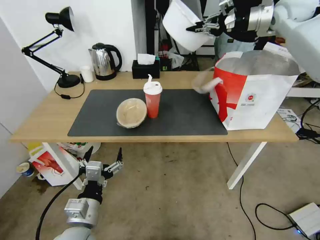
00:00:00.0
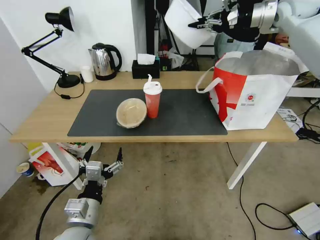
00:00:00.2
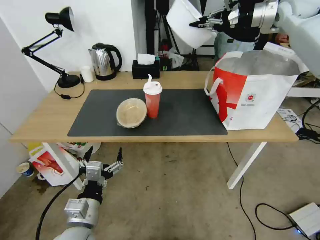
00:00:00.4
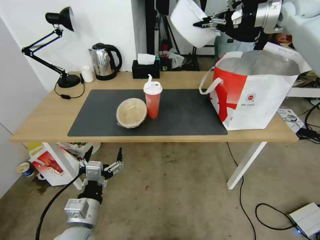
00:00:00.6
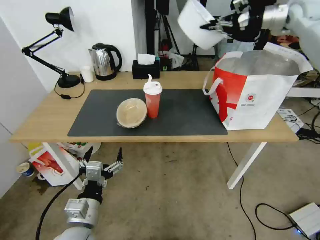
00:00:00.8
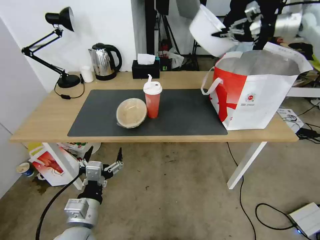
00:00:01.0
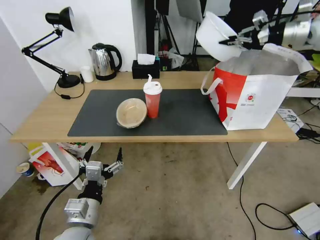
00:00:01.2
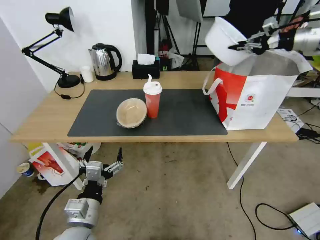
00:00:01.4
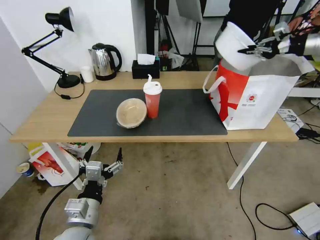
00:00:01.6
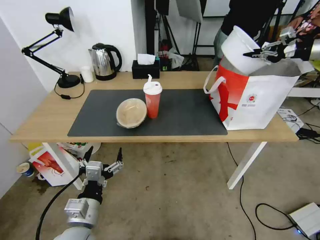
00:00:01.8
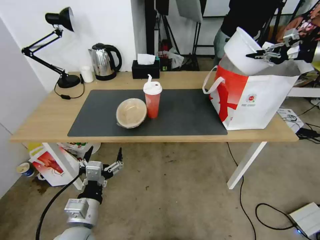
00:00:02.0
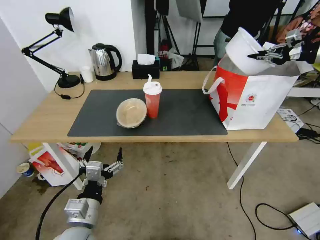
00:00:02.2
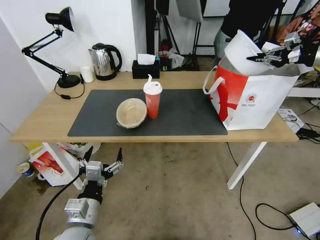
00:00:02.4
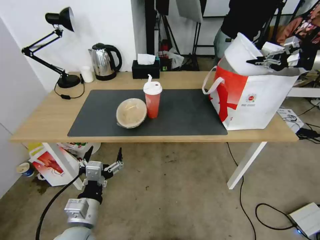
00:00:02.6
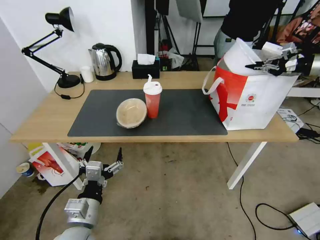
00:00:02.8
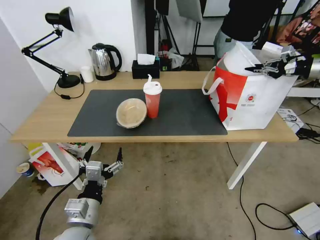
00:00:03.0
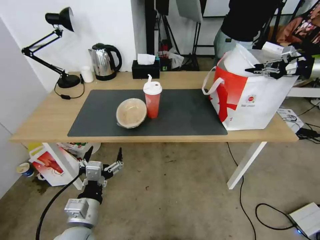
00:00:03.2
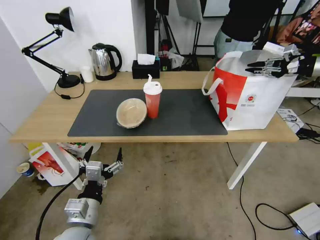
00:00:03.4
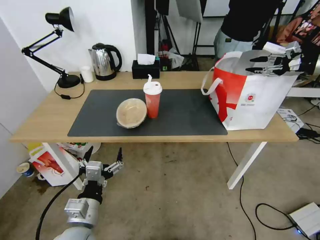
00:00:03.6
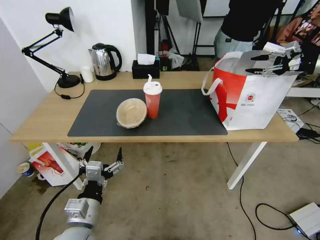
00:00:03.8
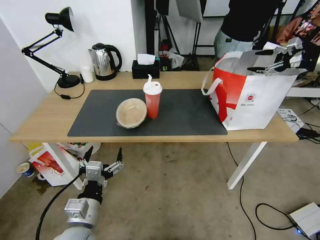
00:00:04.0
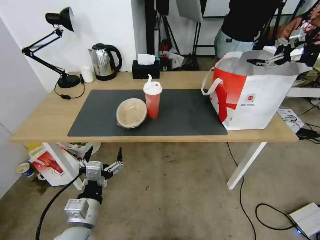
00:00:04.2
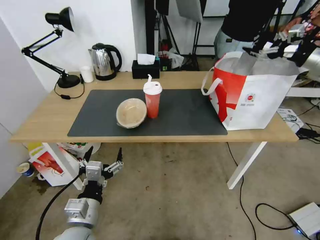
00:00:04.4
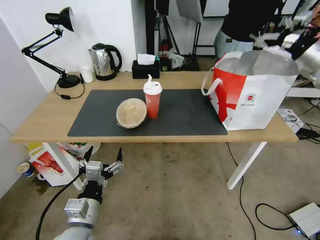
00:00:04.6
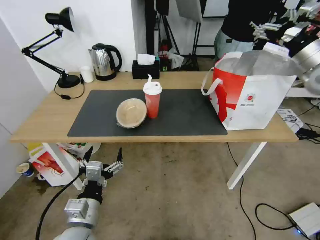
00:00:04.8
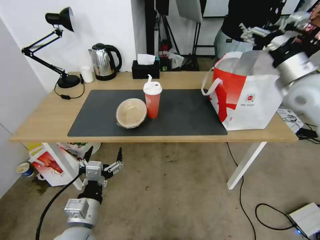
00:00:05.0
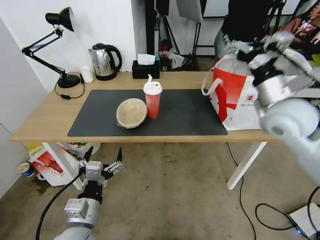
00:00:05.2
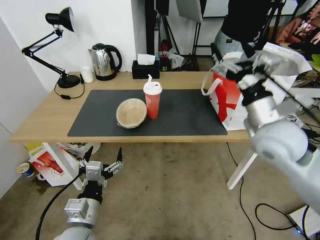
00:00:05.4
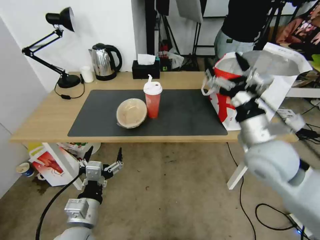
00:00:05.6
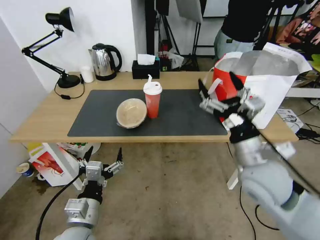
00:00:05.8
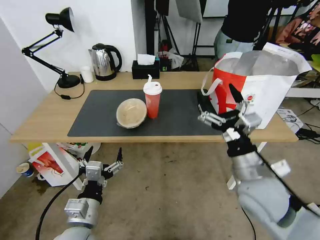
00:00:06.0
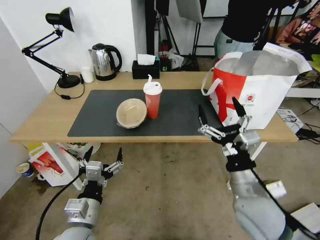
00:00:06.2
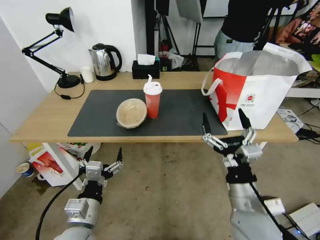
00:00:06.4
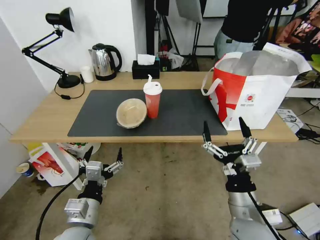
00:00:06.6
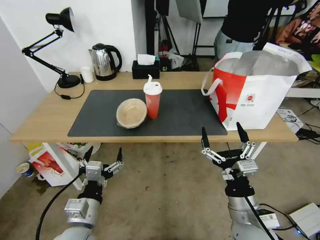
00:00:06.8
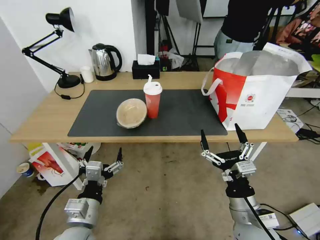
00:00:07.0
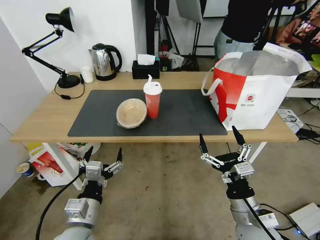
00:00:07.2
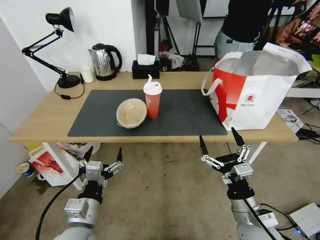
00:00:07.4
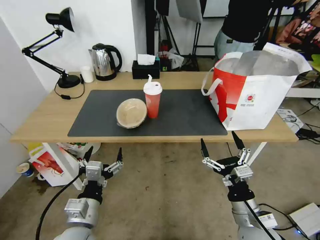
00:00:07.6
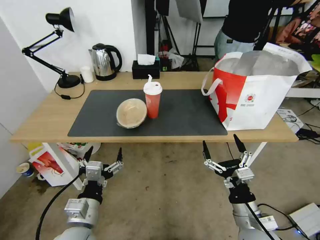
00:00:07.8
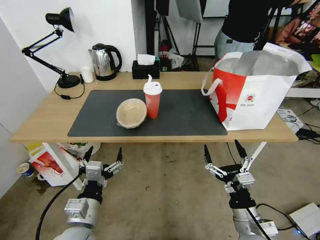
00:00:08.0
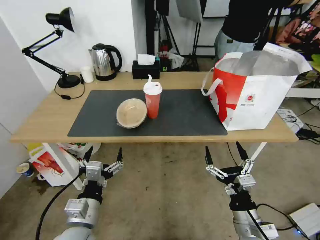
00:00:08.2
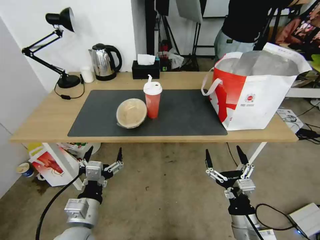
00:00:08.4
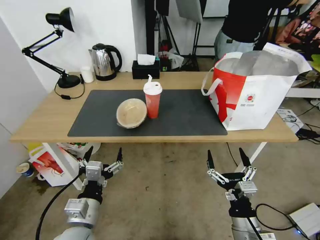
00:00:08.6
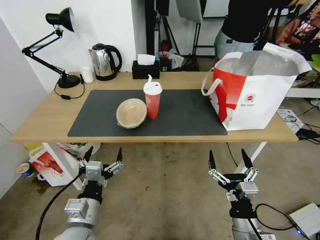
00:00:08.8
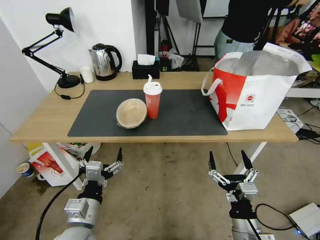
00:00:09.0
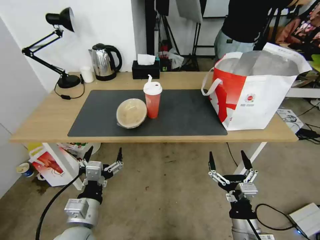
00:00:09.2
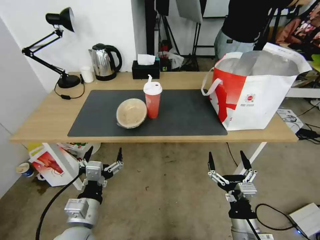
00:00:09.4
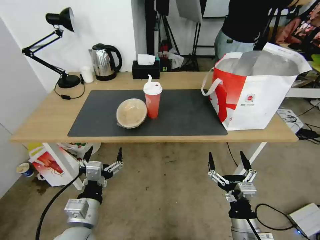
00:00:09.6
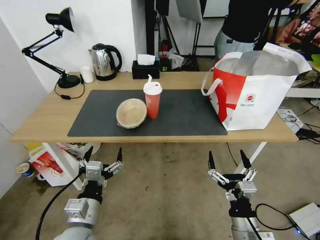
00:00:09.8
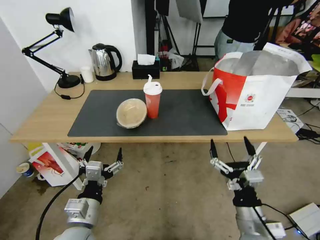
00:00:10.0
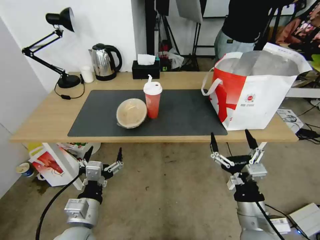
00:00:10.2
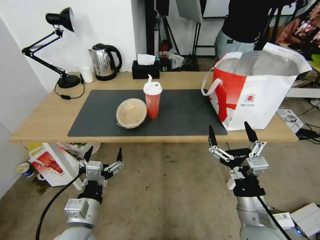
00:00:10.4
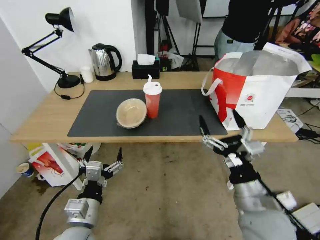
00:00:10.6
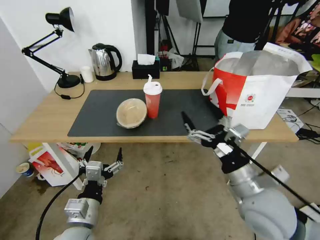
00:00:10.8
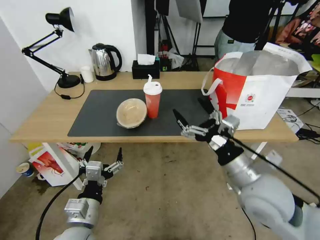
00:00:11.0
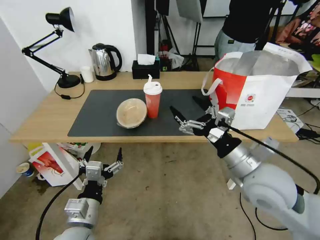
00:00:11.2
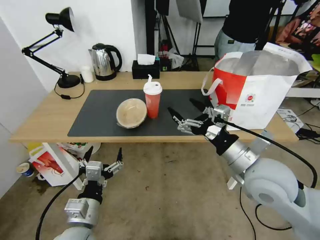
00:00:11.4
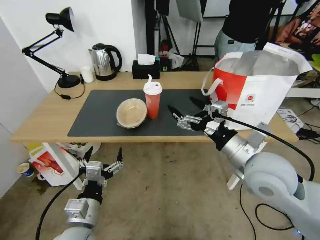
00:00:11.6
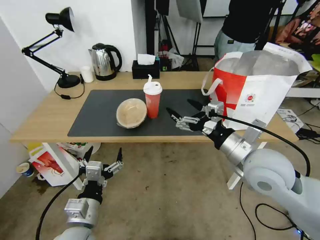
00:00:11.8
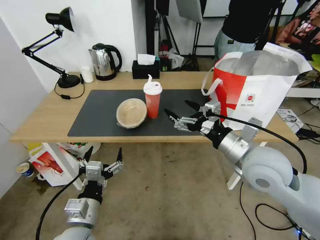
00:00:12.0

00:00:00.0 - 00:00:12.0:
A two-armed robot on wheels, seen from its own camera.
Task of the whole recording: Pick up the trash from the table and place it into the takeout bag.
00:00:00.0 - 00:00:01.6: The right gripper is displaced to the right by roughly 20 cm.
00:00:01.6 - 00:00:03.0: The right gripper heads downward, covering approximately 5 cm.
00:00:03.0 - 00:00:04.4: The right gripper ends up approximately 5 cm from where it was, and opens its fingers.
00:00:04.4 - 00:00:06.0: The right gripper heads to the left, backward and downward, covering about 40 cm.
00:00:06.0 - 00:00:07.6: The right gripper moves downward and backward, roughly 15 cm.
00:00:07.6 - 00:00:09.0: The right gripper ends up about 5 cm from where it was.
00:00:09.0 - 00:00:10.4: The right gripper goes some 10 cm upward.
00:00:10.4 - 00:00:12.0: The right gripper travels forward and upward by approximately 15 cm.

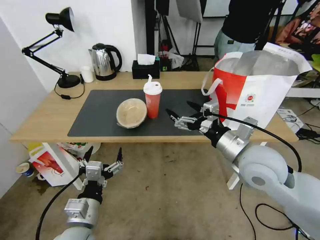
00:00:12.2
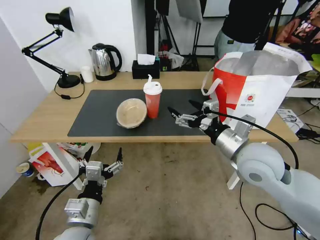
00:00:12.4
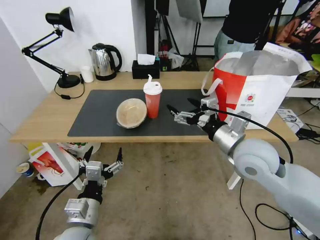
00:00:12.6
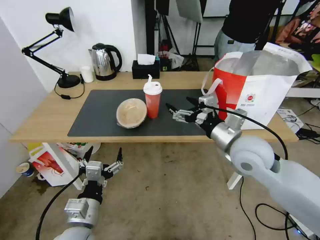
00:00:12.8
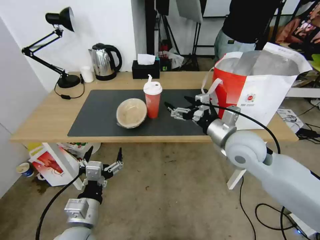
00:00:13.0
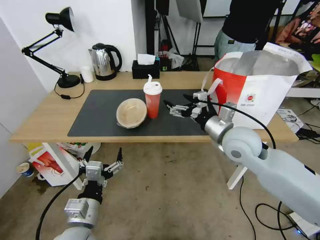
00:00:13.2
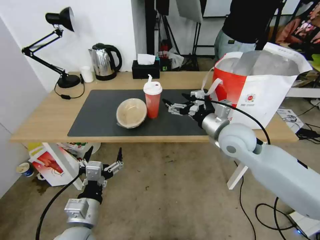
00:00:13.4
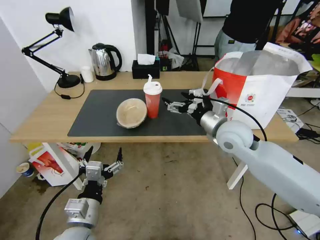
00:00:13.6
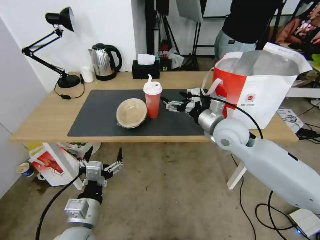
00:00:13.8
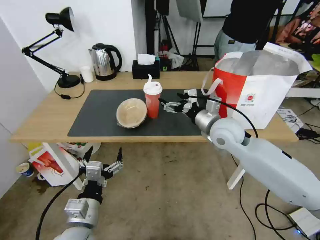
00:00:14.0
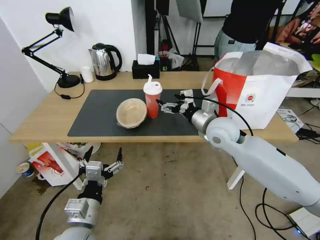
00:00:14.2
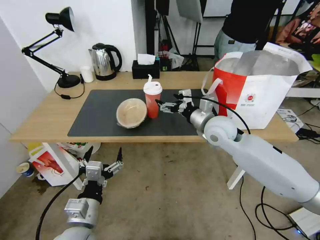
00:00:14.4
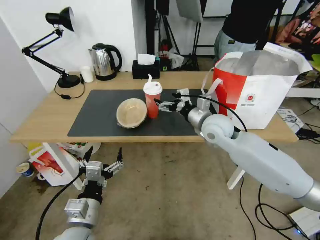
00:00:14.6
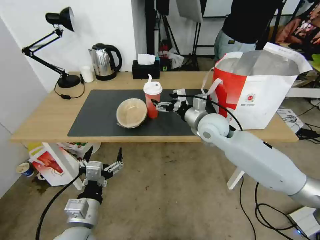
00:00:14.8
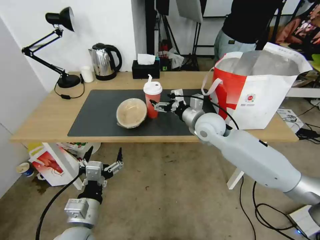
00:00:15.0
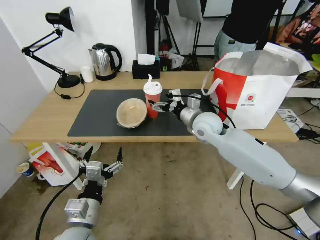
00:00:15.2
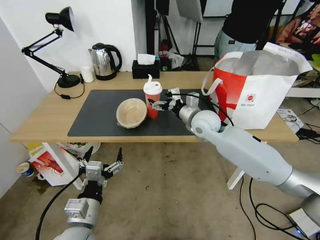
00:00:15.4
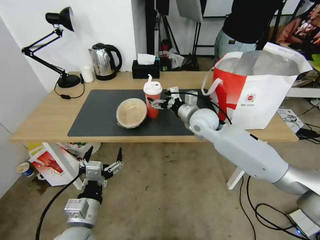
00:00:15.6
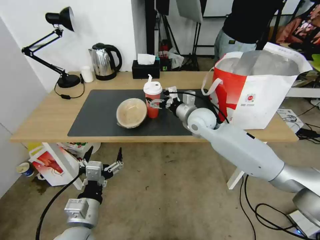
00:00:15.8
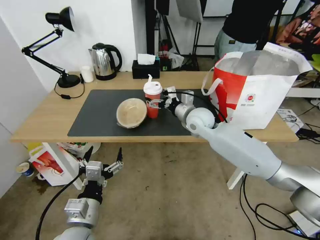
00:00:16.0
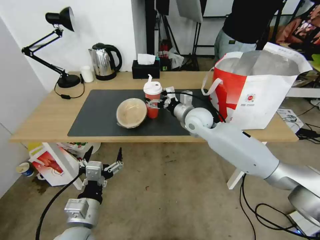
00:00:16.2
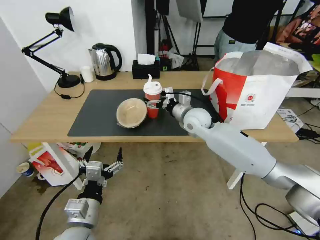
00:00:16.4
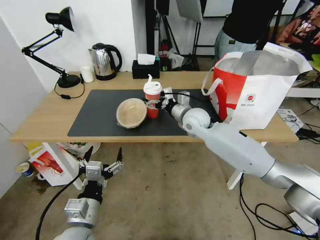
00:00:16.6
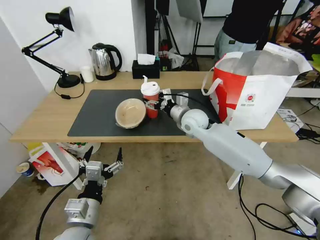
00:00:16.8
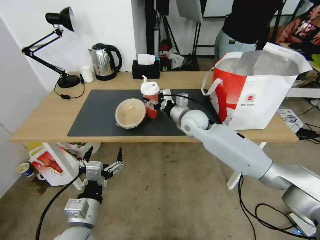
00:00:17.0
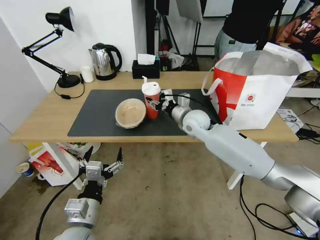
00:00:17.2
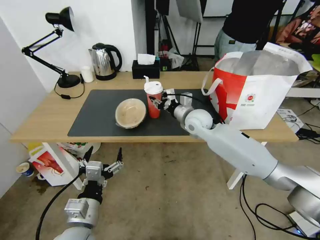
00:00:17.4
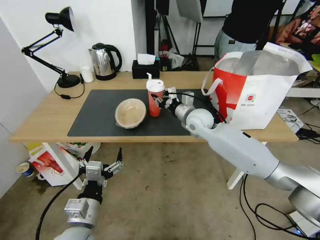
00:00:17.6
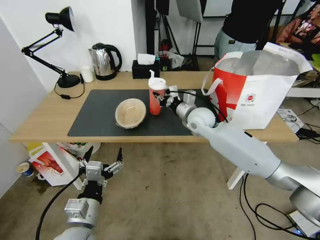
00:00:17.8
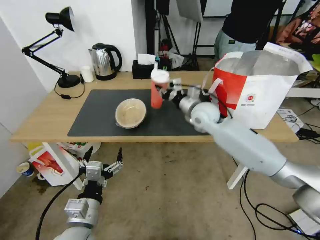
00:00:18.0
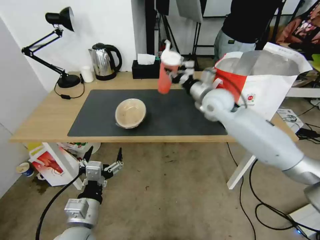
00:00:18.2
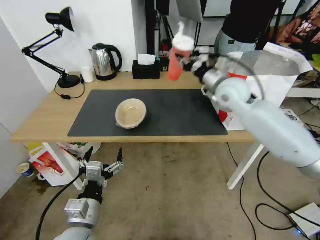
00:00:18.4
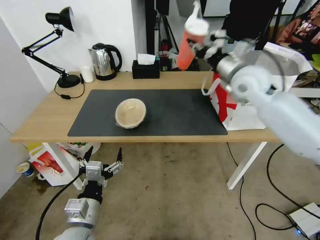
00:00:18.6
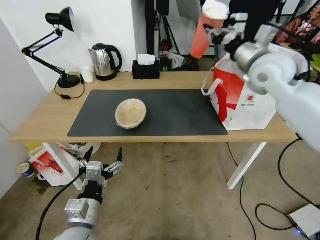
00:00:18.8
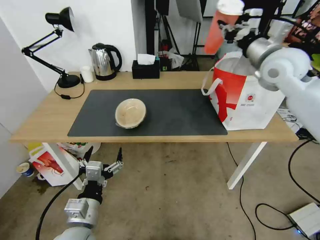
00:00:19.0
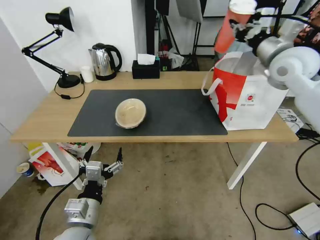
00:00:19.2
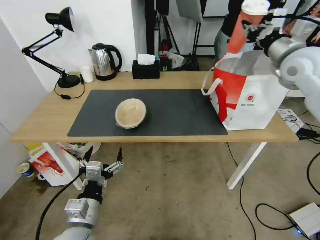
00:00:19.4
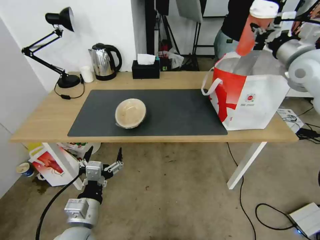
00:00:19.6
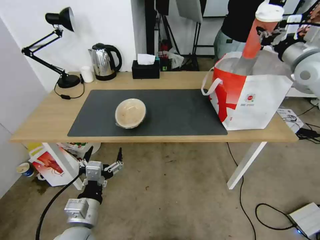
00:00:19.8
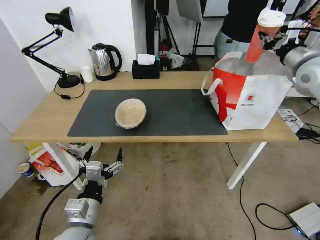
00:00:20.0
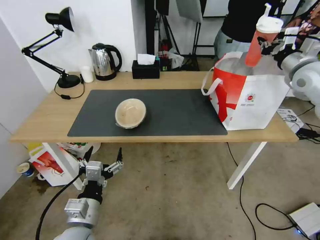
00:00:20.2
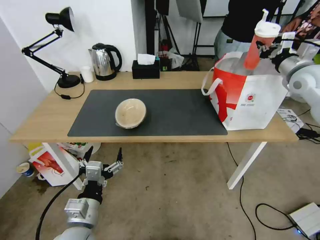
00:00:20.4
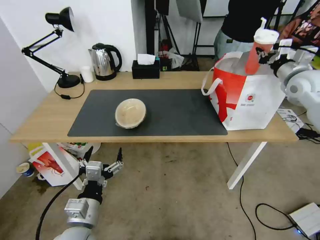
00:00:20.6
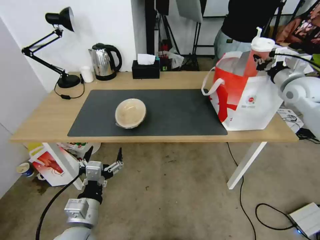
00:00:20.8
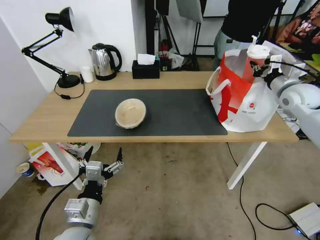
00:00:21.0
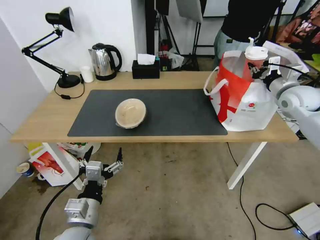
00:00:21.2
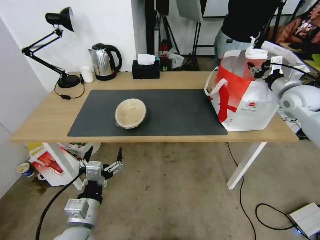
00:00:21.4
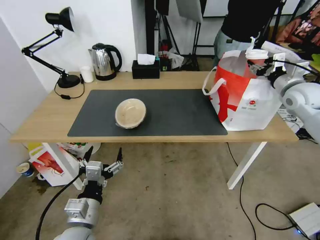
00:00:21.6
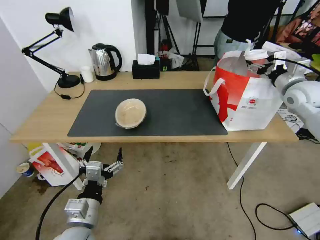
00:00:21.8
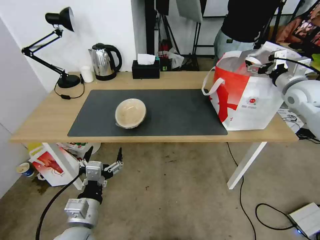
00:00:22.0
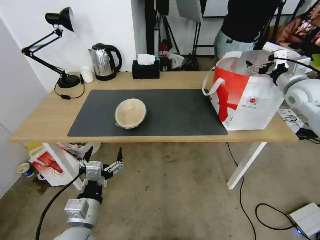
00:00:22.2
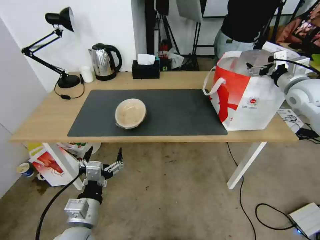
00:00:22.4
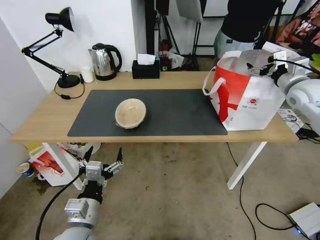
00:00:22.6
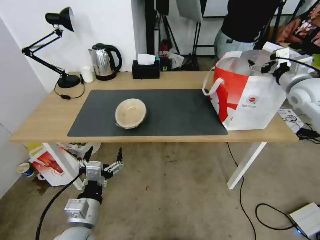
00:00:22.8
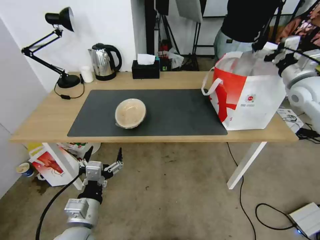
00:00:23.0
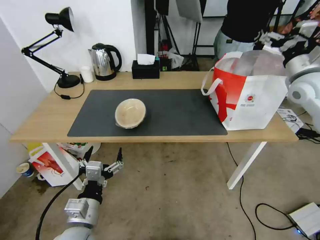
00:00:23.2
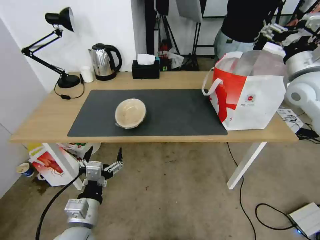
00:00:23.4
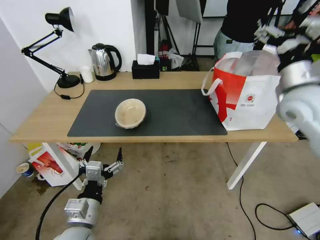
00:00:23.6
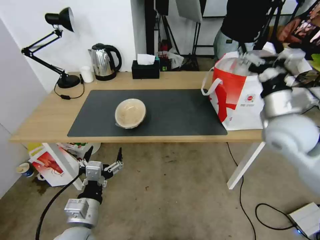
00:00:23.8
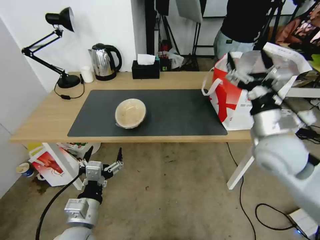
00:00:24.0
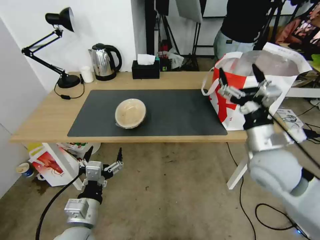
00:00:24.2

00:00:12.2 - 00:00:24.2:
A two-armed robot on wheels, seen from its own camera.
Task of the whole recording: Pick up the trash from the table and place it into the takeout bag.
00:00:12.2 - 00:00:13.8: The right gripper travels forward by roughly 10 cm.
00:00:13.8 - 00:00:15.2: The right gripper shifts about 5 cm forward.
00:00:15.2 - 00:00:16.6: The right gripper moves roughly 5 cm.
00:00:16.6 - 00:00:18.2: The right gripper travels upward and to the right by about 10 cm, and closes up.
00:00:18.2 - 00:00:19.8: The right gripper moves to the right and upward, roughly 25 cm.
00:00:19.8 - 00:00:21.2: The right gripper heads downward, covering some 10 cm.
00:00:21.2 - 00:00:22.6: The right gripper opens its fingers.
00:00:22.6 - 00:00:24.2: The right gripper heads backward and to the left, covering roughly 30 cm.
